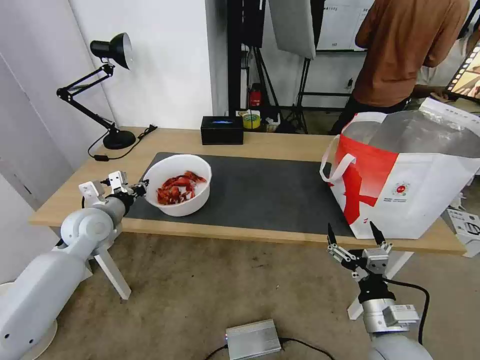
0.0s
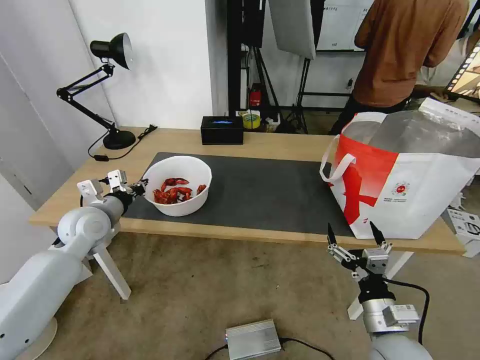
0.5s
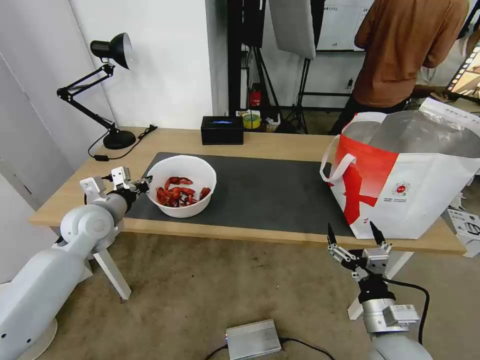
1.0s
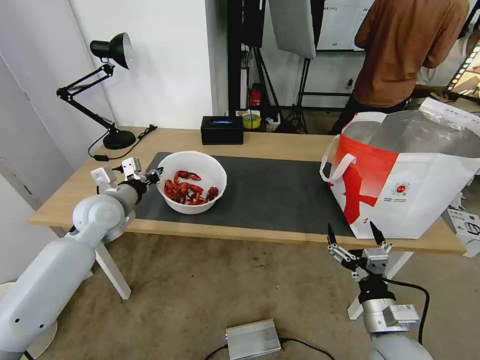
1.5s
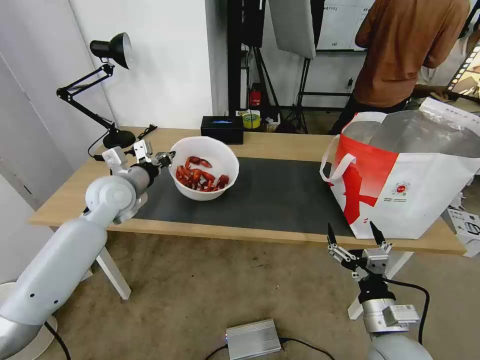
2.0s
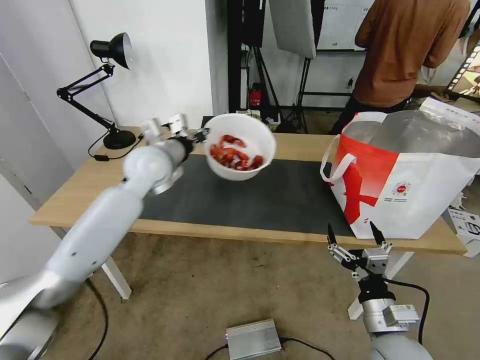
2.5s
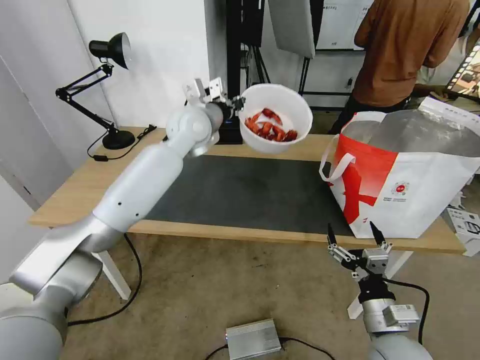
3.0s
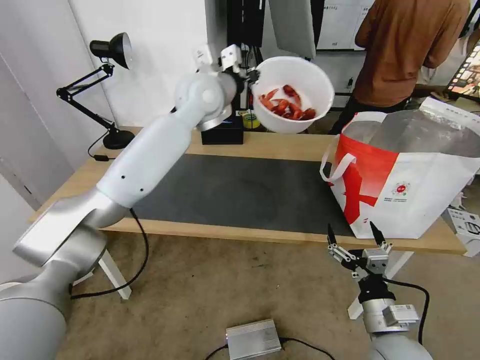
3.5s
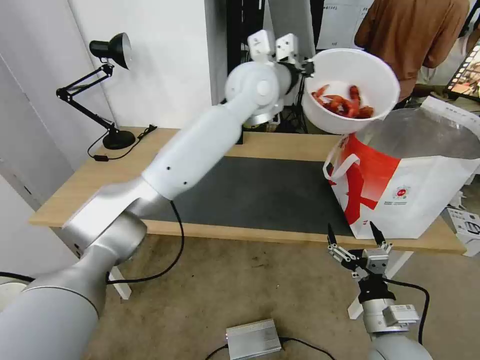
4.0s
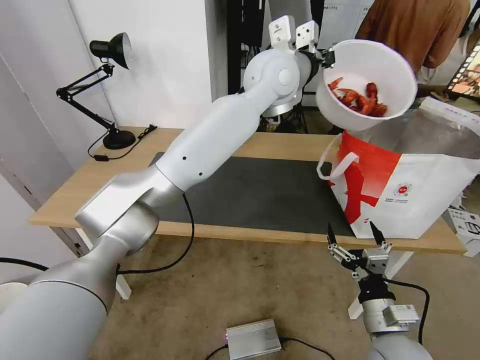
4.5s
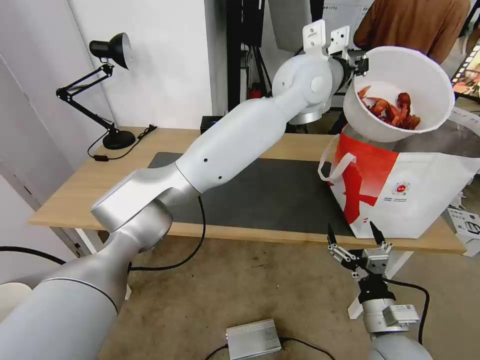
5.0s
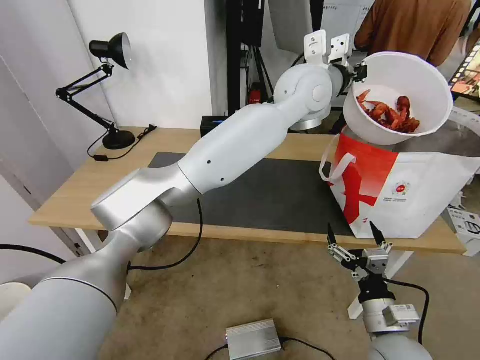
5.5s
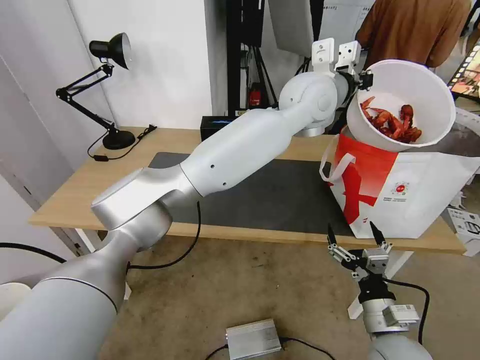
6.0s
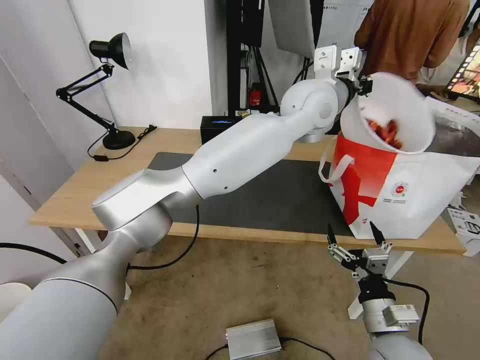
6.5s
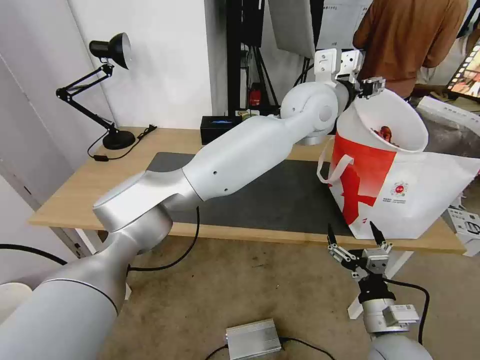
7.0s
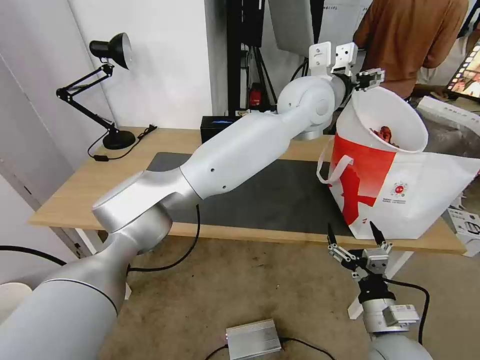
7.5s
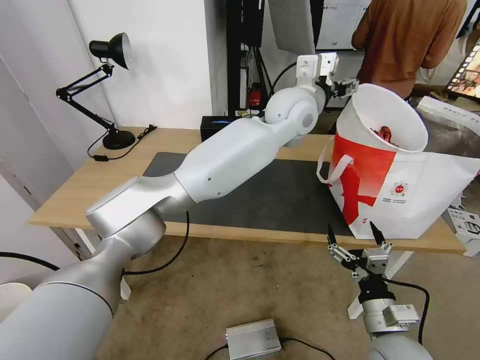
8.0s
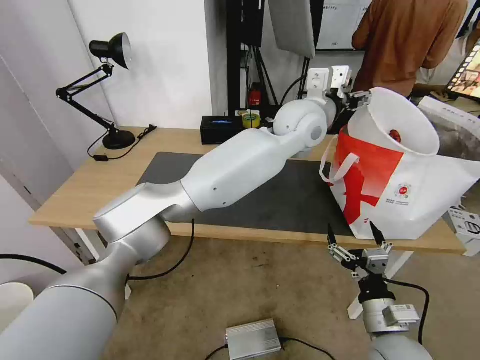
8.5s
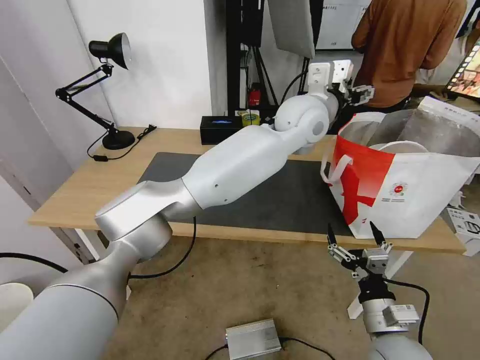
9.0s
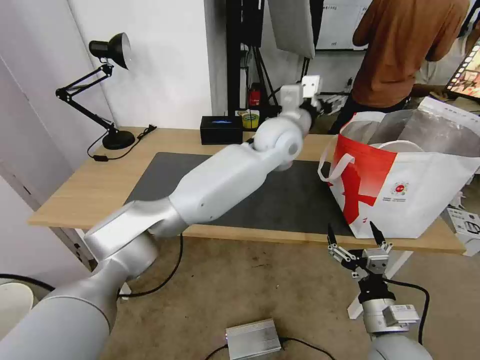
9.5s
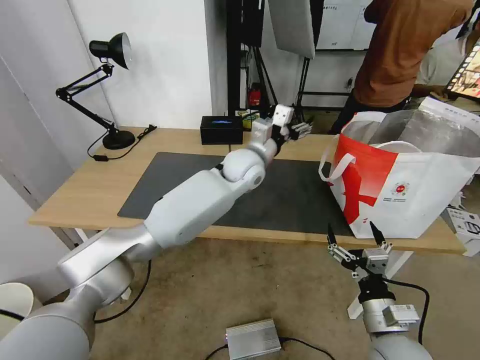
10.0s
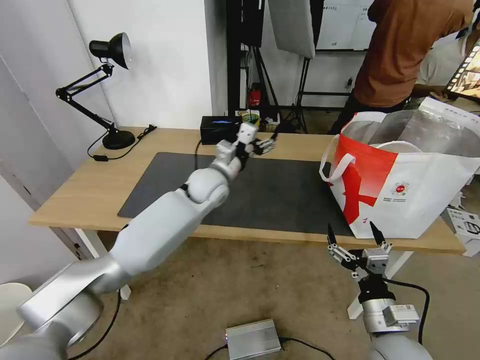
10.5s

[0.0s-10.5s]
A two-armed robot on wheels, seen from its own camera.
Task of the whole recording: Pick up the trash from the table and place it into the takeout bag.
0.0s to 2.0s: The left gripper moves upward and to the right, about 10 cm.
2.0s to 4.0s: The left gripper goes about 35 cm to the right and upward.
4.0s to 6.5s: The left gripper goes approximately 10 cm to the right.
6.5s to 8.5s: The left gripper opens up.
8.5s to 10.5s: The left gripper shifts roughly 25 cm to the left and downward.

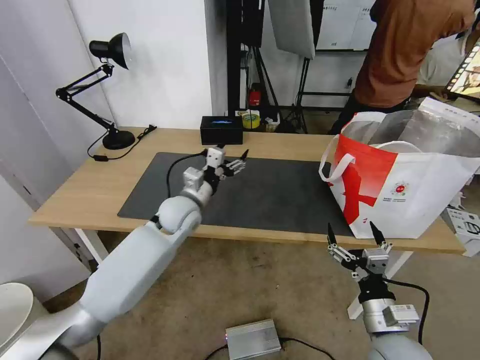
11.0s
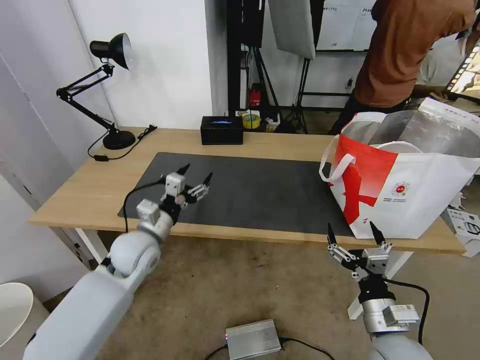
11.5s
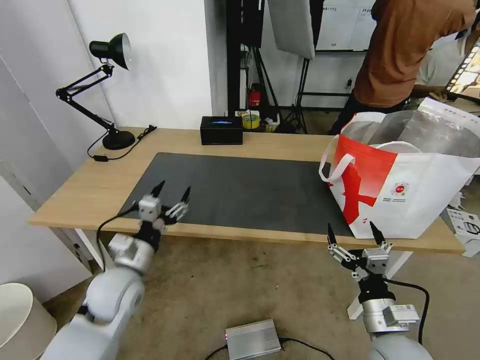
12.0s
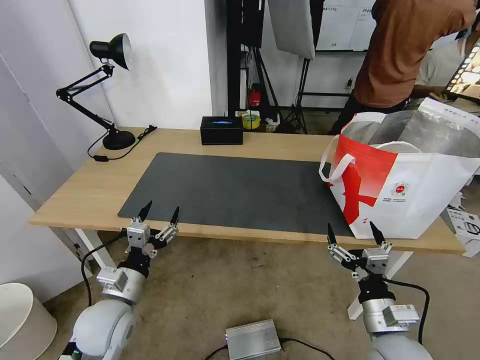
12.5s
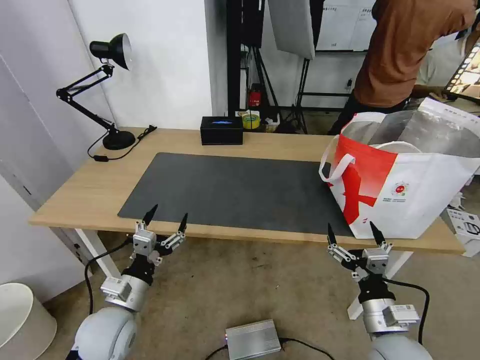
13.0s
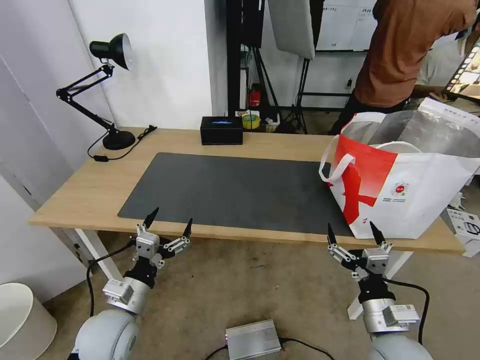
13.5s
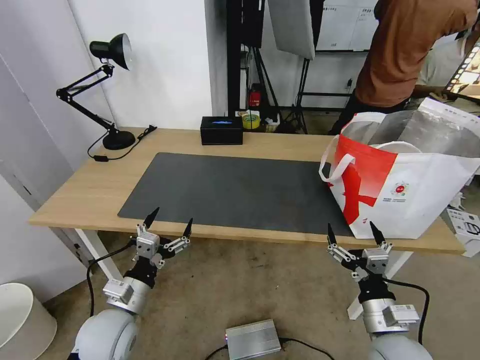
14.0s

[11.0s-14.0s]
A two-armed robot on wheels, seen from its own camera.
Task of the whole recording: Pick up the trash from the table and place it into the takeout bag.
11.0s to 12.5s: The left gripper shifts roughly 25 cm backward and to the left.
12.5s to 14.0s: The grippers make only small movements.
